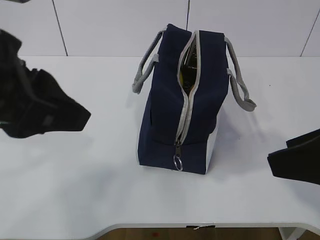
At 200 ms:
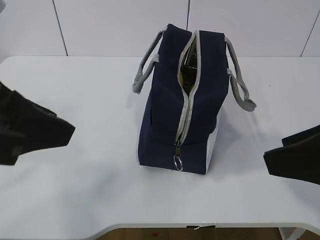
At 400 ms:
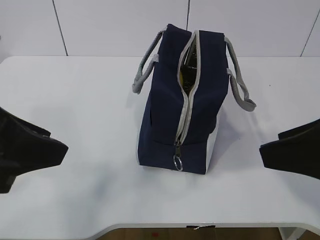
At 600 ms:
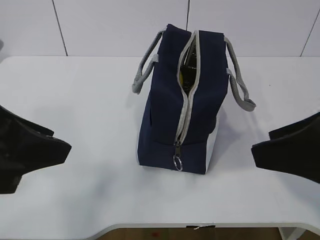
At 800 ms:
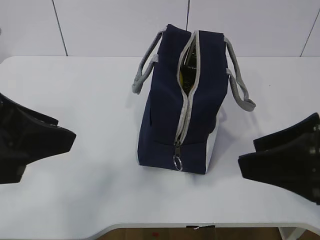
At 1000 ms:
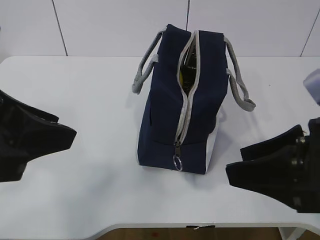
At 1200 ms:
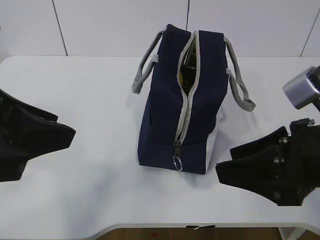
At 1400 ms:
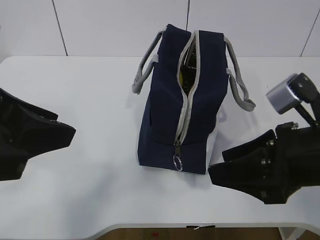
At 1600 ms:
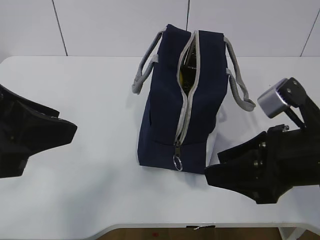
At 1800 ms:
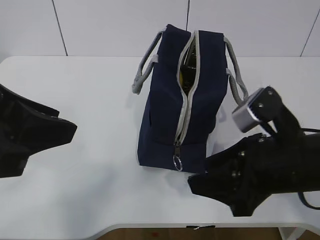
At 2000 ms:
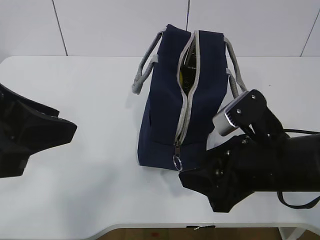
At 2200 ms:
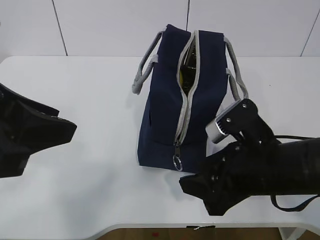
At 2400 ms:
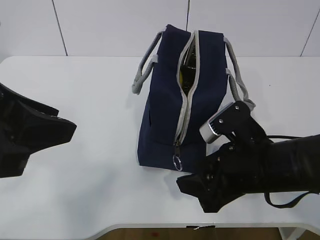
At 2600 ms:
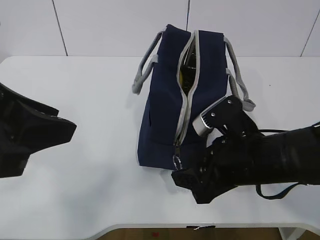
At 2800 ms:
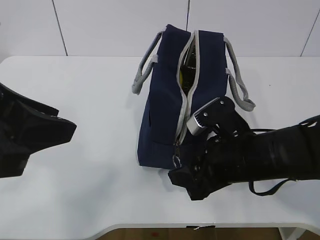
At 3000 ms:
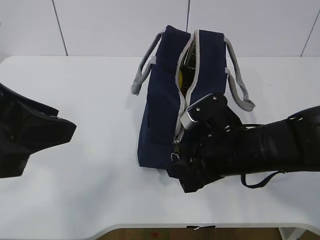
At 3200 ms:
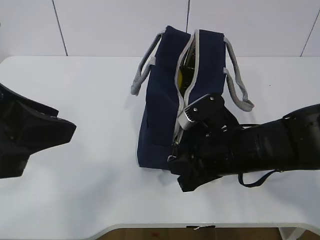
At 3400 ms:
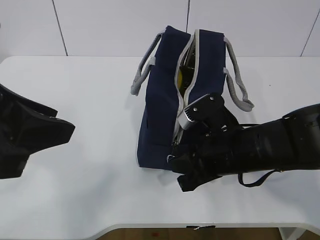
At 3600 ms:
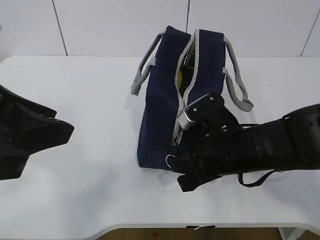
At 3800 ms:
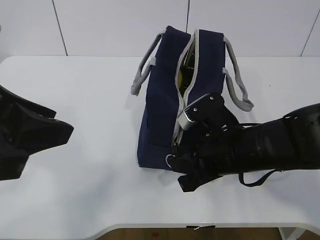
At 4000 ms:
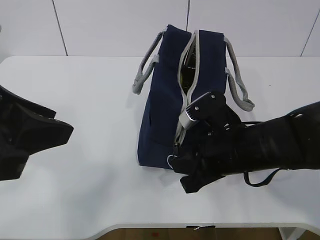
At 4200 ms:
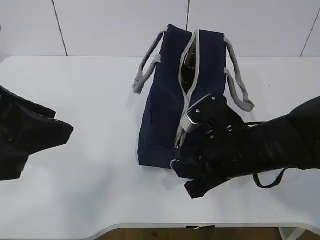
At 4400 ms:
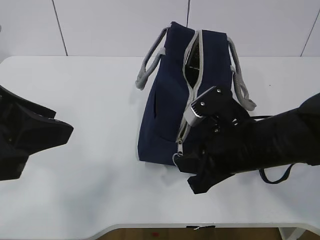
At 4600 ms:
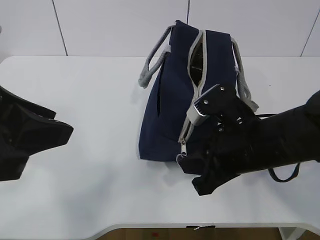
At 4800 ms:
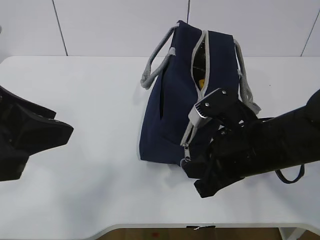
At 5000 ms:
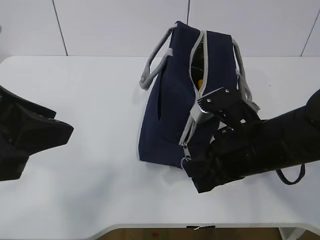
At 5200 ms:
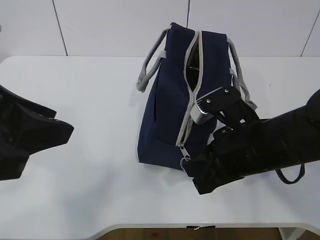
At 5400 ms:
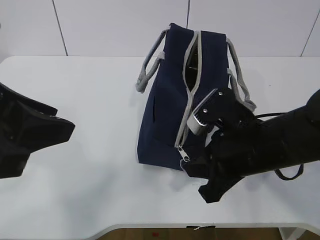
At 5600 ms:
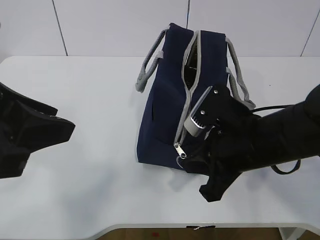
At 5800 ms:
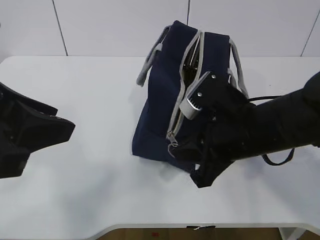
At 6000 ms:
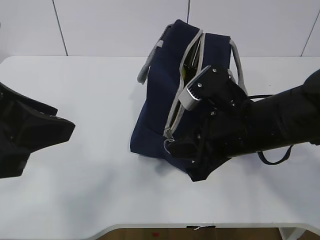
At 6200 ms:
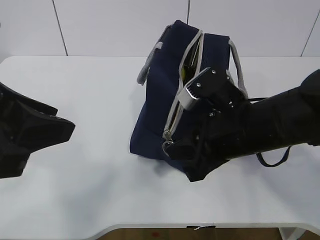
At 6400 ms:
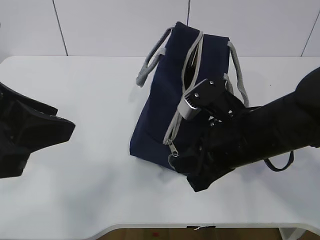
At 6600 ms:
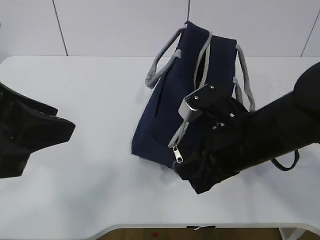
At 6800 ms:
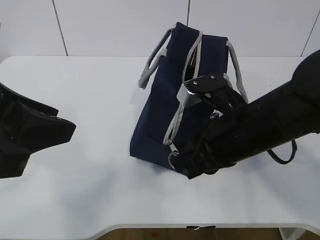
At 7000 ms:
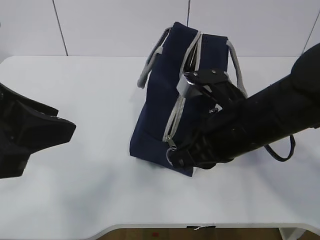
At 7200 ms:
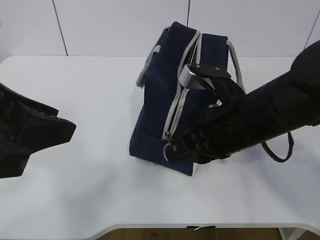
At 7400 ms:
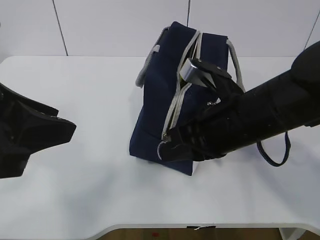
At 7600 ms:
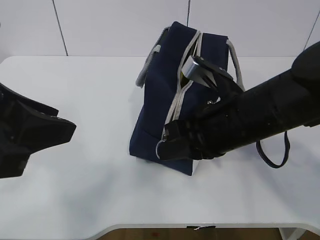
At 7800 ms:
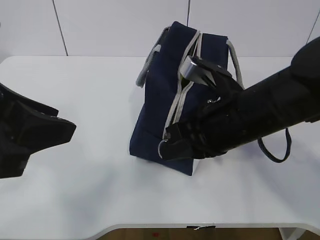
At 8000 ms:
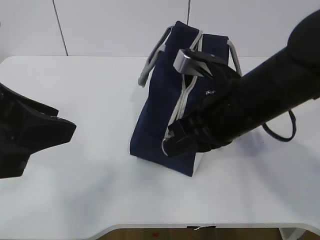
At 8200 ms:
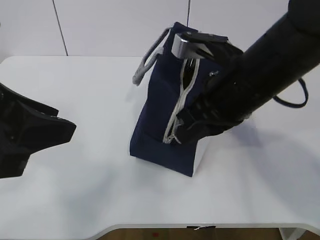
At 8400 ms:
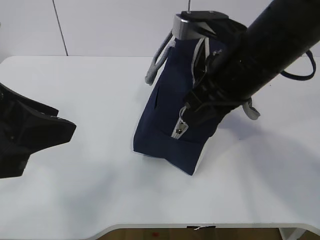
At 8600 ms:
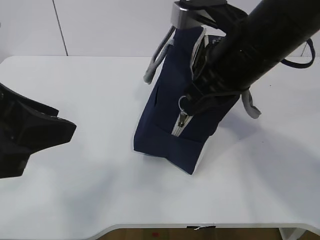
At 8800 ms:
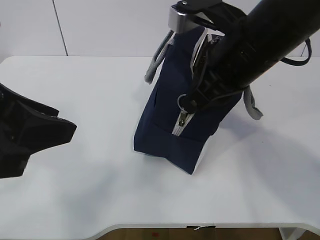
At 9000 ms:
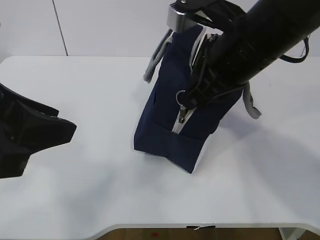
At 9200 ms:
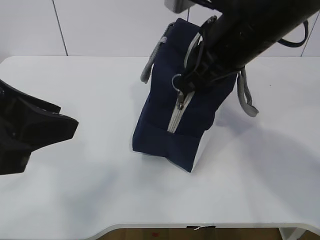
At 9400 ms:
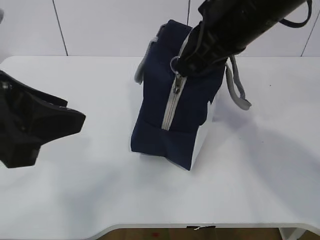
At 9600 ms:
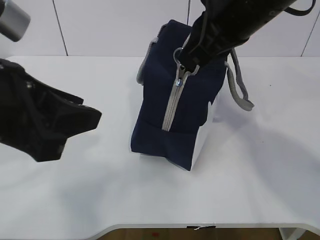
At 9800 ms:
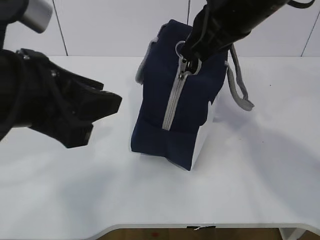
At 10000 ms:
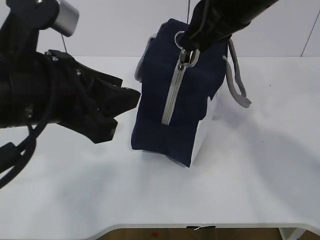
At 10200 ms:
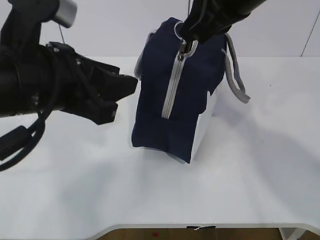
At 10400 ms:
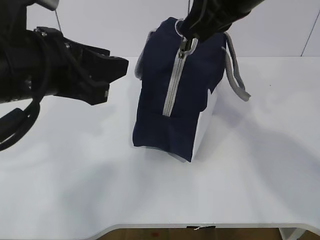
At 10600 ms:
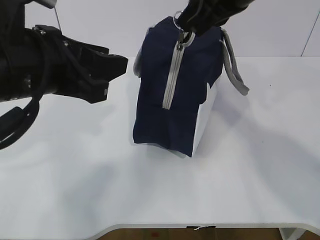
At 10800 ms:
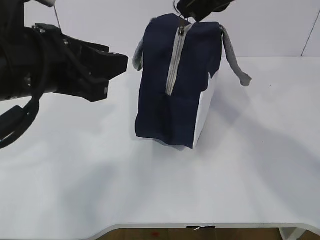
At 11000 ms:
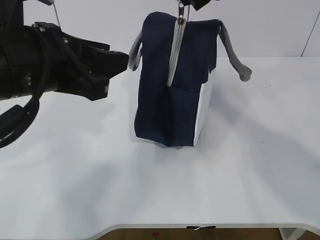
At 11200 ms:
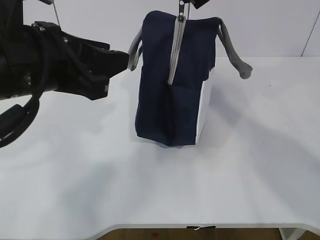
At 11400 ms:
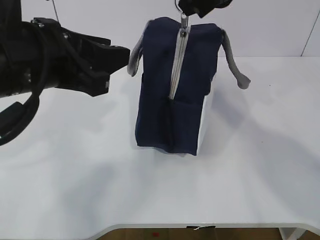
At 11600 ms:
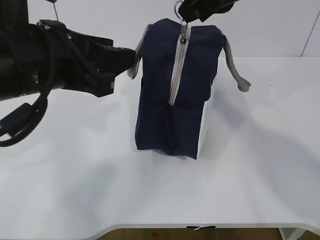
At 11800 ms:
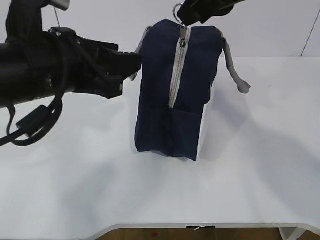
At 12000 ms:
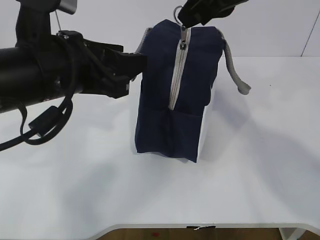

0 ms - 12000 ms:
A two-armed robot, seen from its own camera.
0 ms - 1600 ms: The right gripper heads downward and forward, covering approximately 10 cm.
1600 ms - 3000 ms: The right gripper shifts approximately 10 cm to the left, downward and forward.
3000 ms - 4400 ms: The right gripper closes.
4400 ms - 6000 ms: The grippers move only a little.
7600 ms - 9000 ms: The right gripper travels upward by roughly 10 cm.
9000 ms - 10400 ms: The right gripper heads upward, covering about 5 cm; the left gripper travels forward by approximately 5 cm.
10400 ms - 12000 ms: The grippers stay close to where they were, moving slightly.

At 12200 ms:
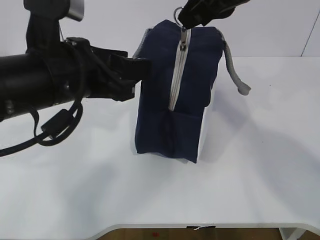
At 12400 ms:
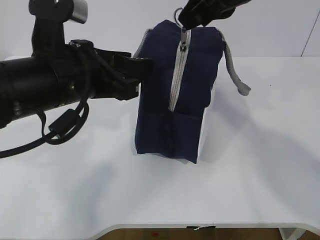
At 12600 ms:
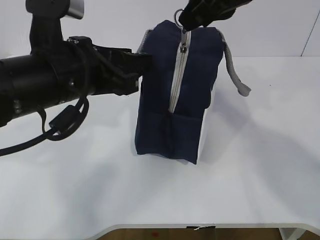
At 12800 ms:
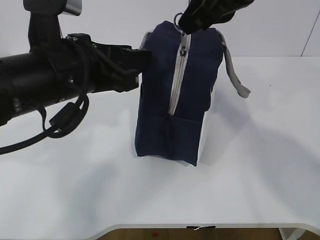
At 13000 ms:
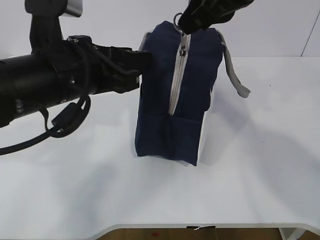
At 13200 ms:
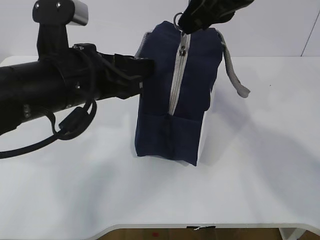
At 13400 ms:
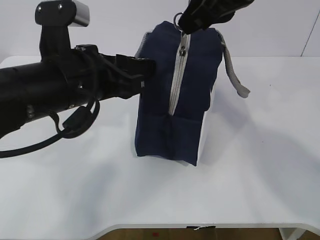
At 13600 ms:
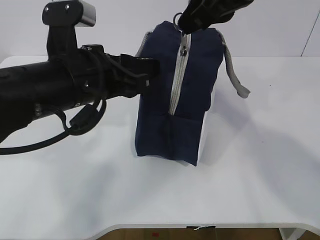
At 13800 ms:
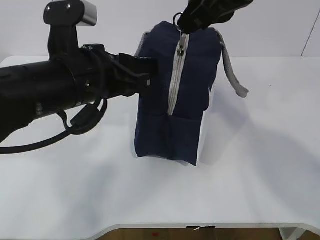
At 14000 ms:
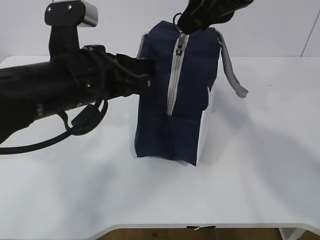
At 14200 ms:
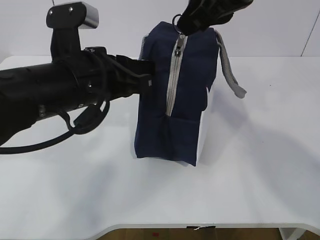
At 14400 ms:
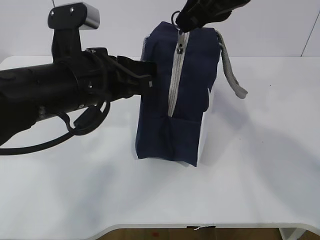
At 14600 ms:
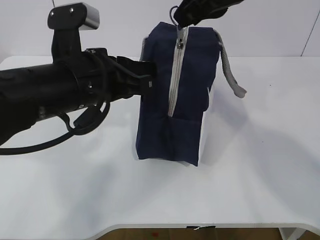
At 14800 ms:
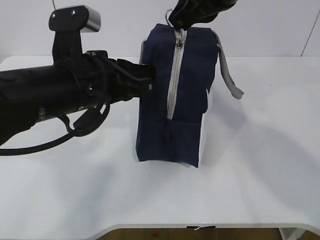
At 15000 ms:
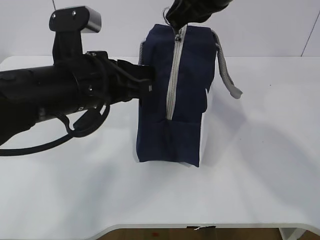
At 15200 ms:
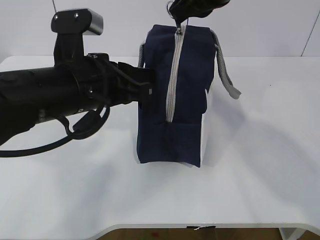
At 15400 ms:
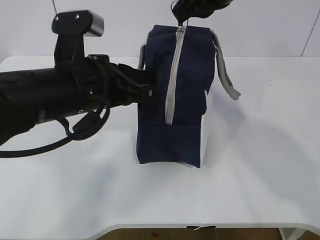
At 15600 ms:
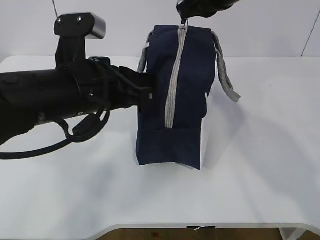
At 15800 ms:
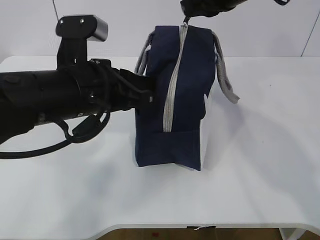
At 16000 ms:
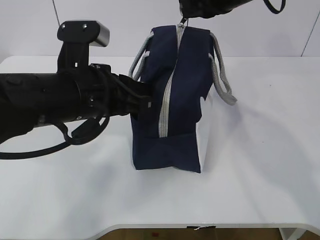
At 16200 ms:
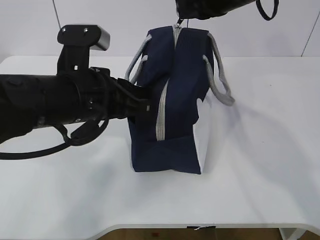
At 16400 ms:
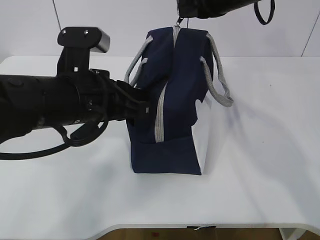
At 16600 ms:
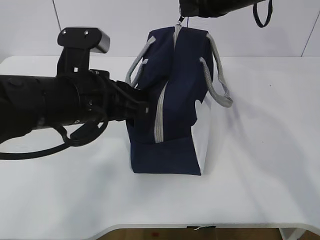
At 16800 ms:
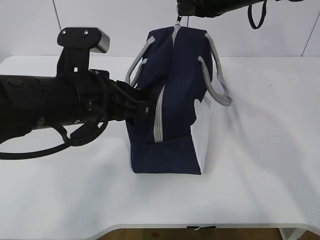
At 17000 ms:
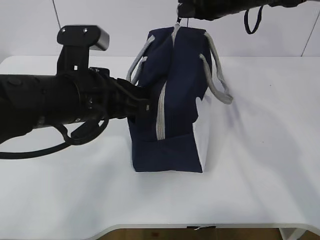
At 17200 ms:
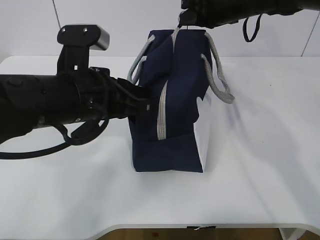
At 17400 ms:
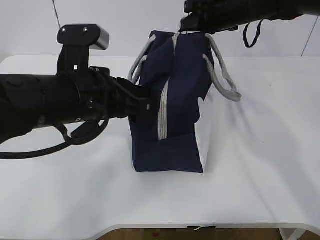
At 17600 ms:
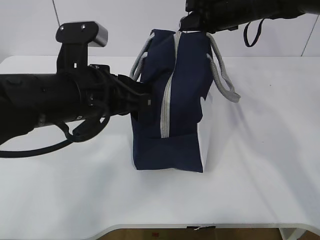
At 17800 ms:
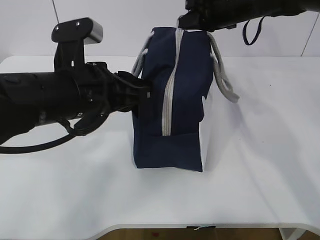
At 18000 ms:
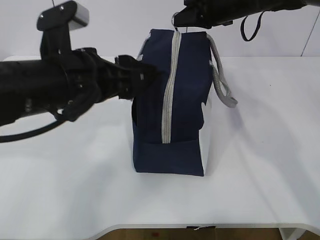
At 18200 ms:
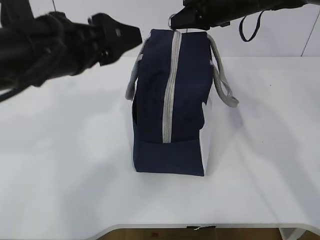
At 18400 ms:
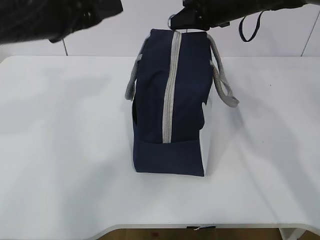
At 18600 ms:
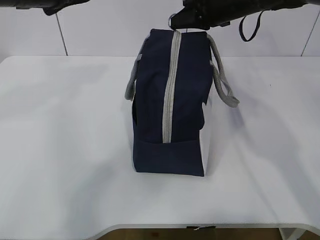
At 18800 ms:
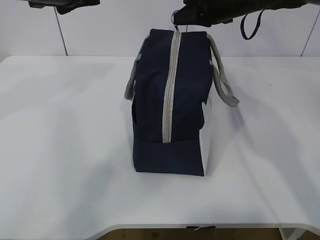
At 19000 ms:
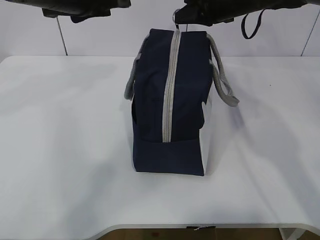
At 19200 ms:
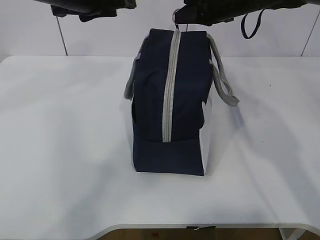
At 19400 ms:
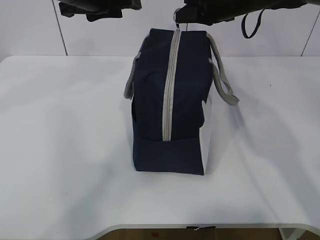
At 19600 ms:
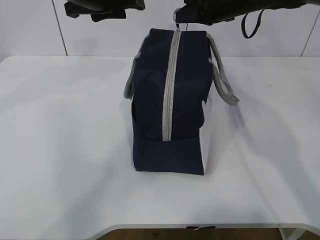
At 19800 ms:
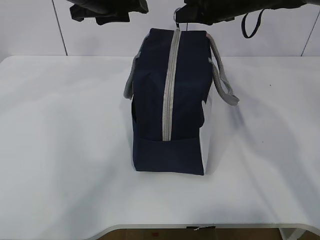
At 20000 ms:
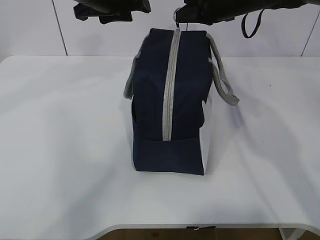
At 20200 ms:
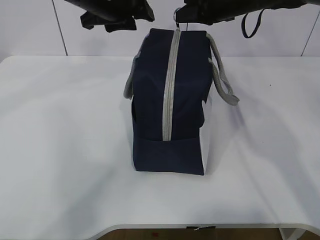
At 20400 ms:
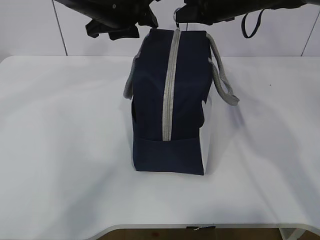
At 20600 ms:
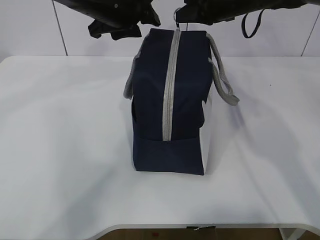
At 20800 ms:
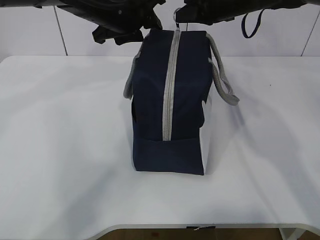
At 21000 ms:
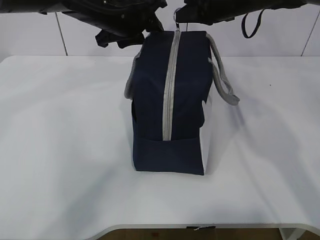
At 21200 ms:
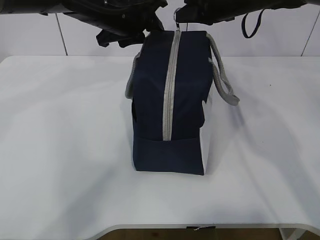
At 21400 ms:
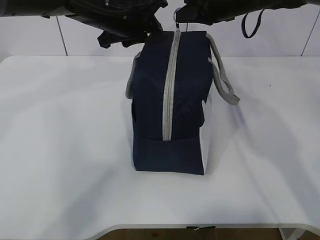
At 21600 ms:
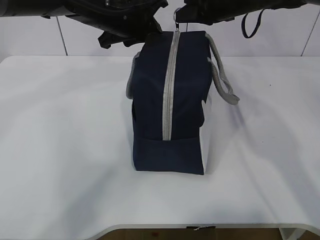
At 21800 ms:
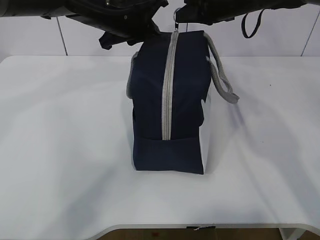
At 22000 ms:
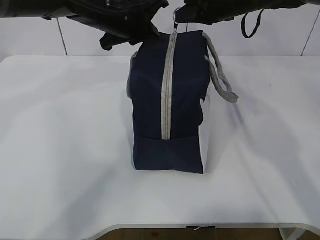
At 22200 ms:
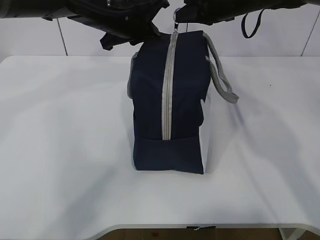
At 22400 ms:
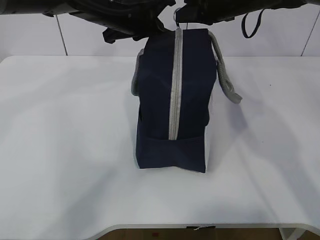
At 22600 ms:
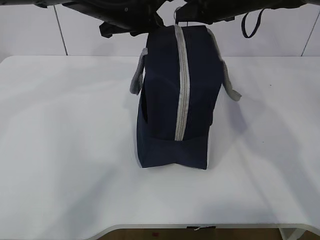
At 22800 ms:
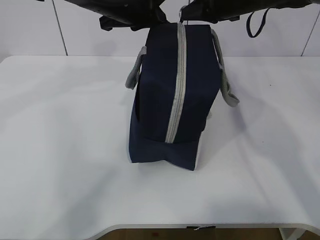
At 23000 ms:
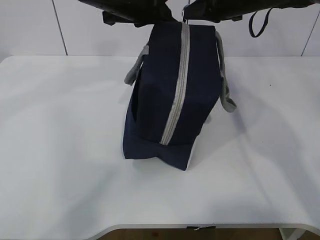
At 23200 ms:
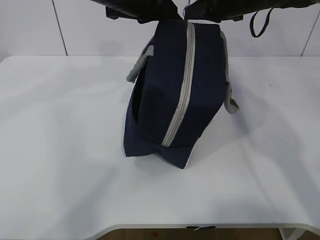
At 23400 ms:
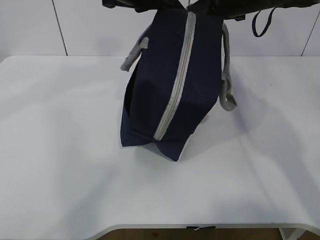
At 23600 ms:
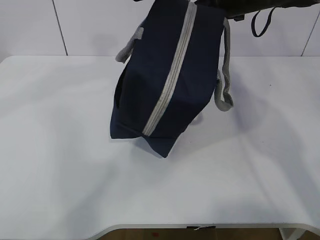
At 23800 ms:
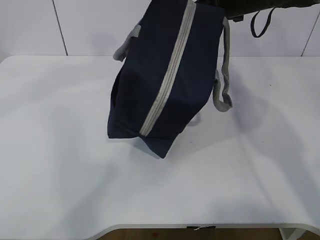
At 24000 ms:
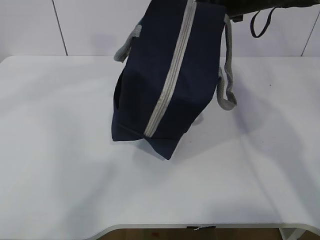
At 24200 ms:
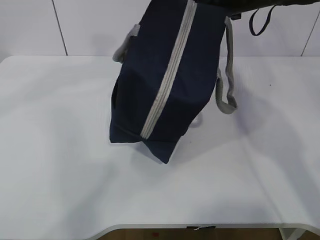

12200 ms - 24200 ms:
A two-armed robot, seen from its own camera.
12200 ms - 13800 ms: The left gripper closes up.
13800 ms - 15200 ms: The left gripper closes its fingers. The right gripper shifts by about 5 cm.
15200 ms - 16600 ms: The right gripper goes approximately 10 cm forward.
16600 ms - 18200 ms: The left gripper travels upward by some 5 cm, and opens up.
18200 ms - 19800 ms: The left gripper goes some 15 cm forward.
19800 ms - 21200 ms: The left gripper moves approximately 5 cm.
21200 ms - 22600 ms: The left gripper closes its fingers.
22600 ms - 24200 ms: The left gripper goes roughly 10 cm upward and backward.
